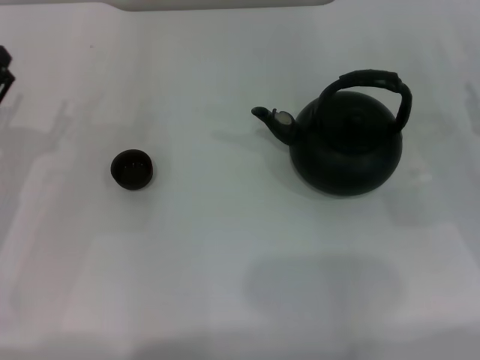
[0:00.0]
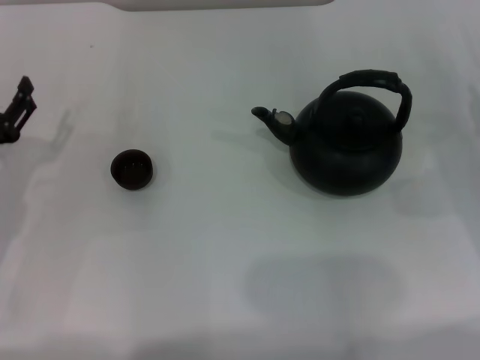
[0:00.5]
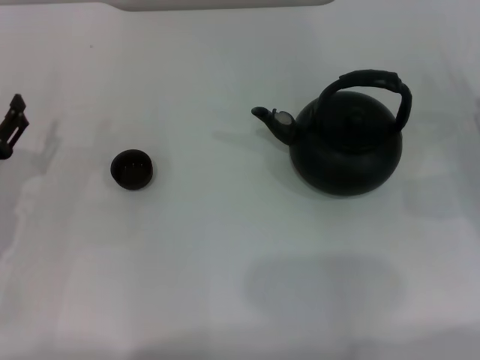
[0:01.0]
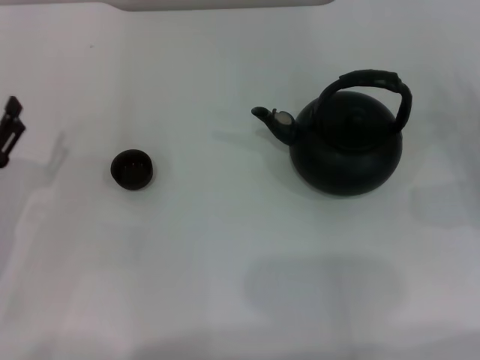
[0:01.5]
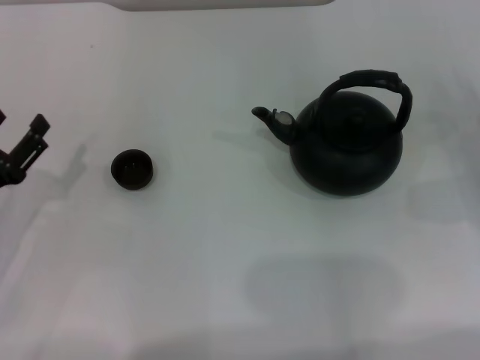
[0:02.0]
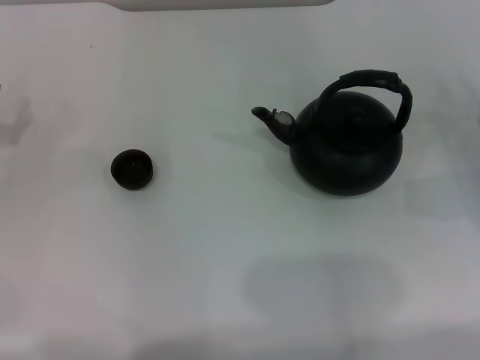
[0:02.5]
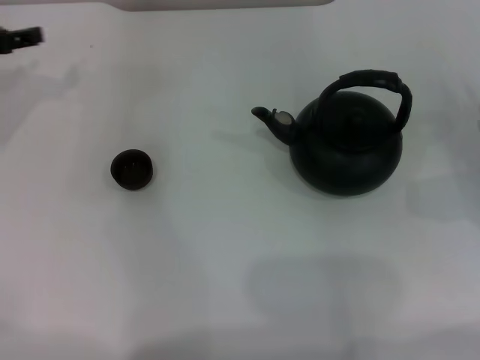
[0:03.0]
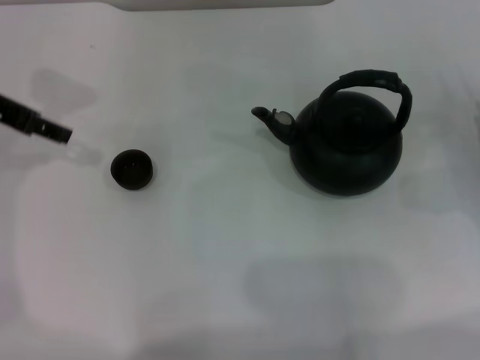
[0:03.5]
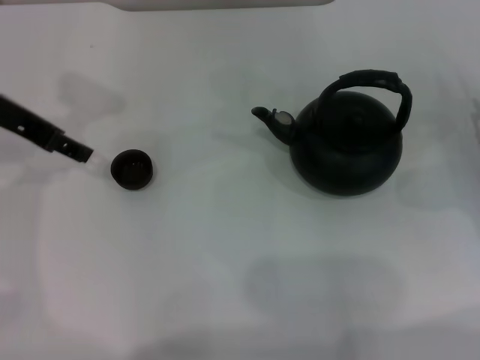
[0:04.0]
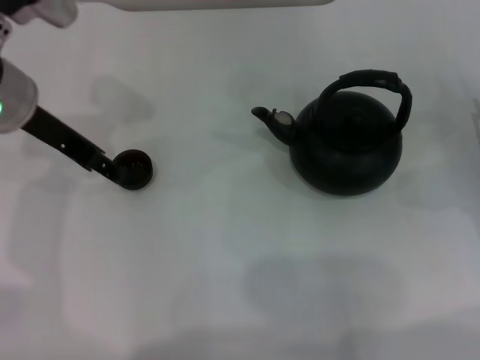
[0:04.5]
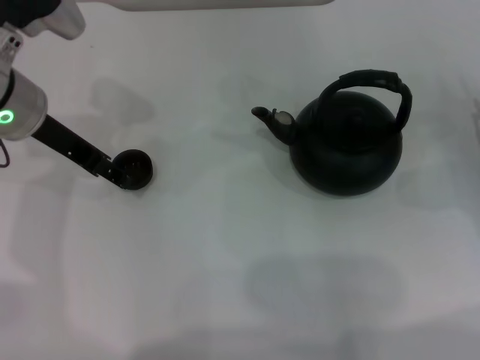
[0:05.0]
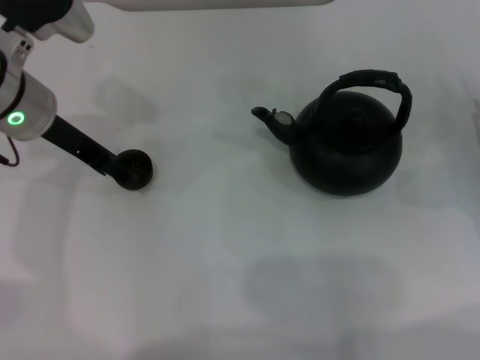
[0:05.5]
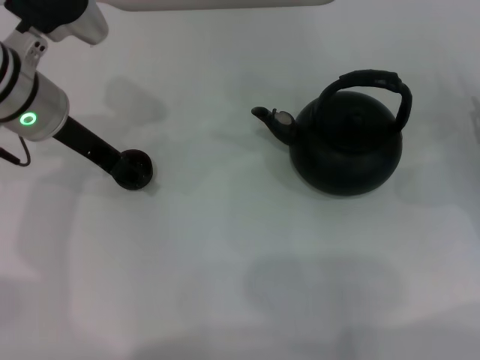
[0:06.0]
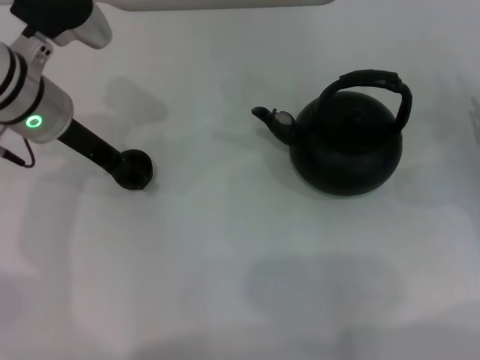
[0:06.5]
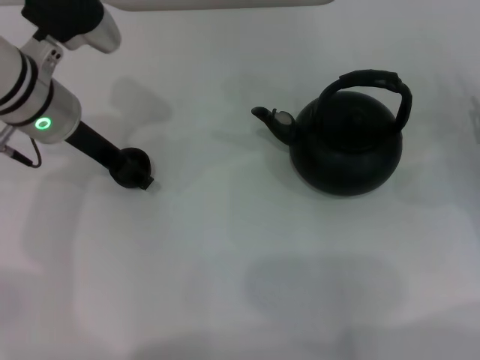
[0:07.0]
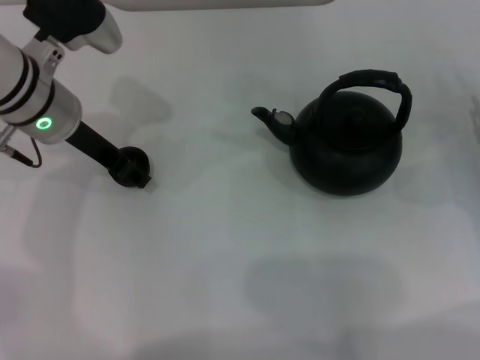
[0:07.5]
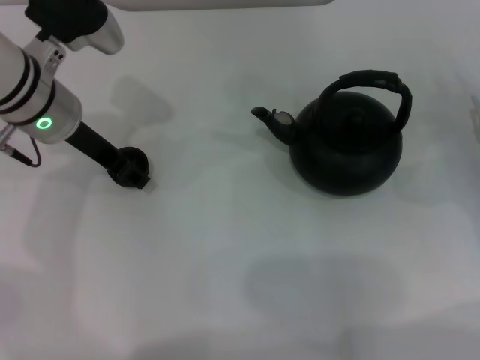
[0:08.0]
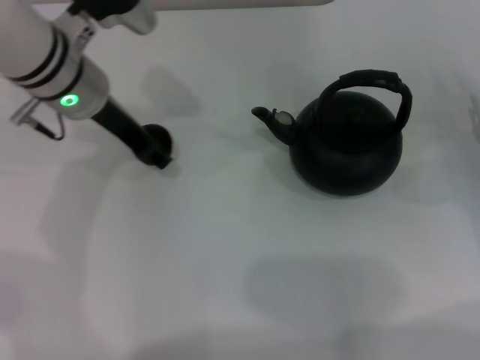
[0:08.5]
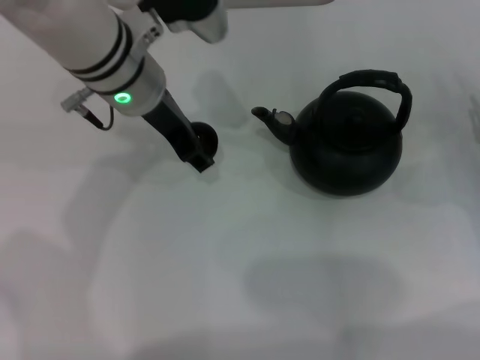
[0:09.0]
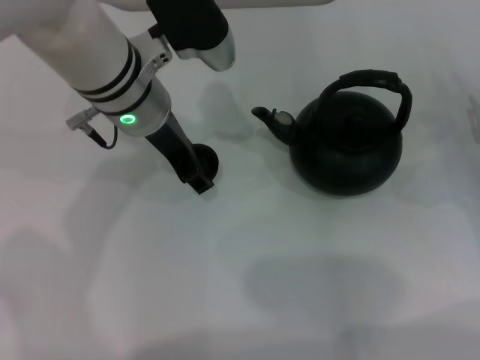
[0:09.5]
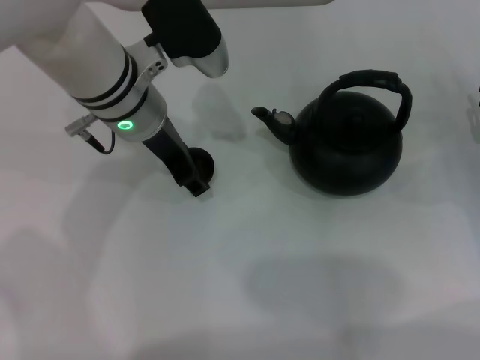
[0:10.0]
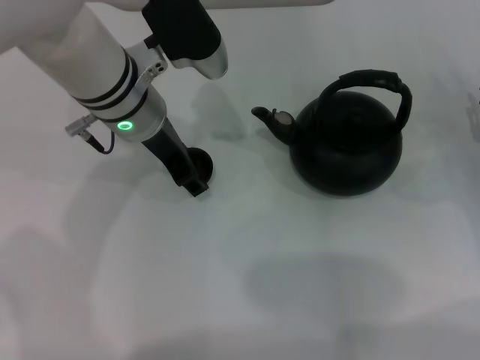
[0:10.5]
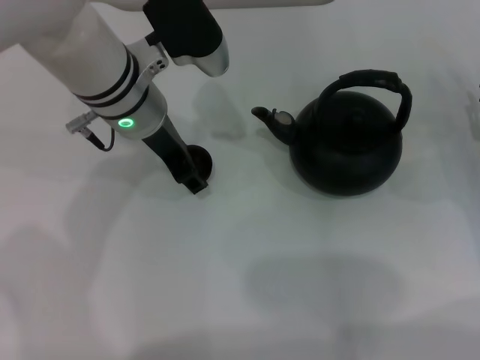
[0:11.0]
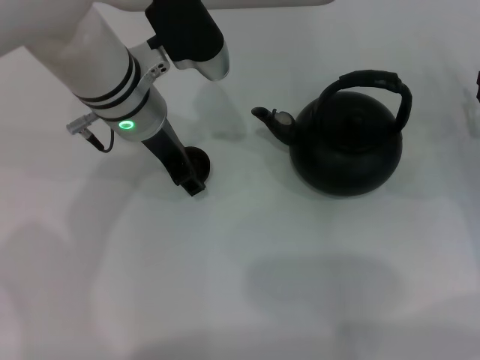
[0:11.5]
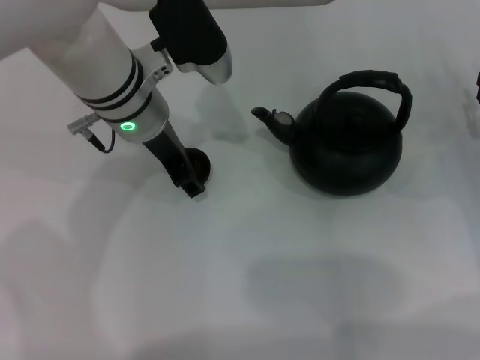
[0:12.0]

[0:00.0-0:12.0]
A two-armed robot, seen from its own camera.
Task of the whole recording: Grasp the handle of the teapot with one hand and pour tea into the teacup.
Step, 0:00.0 to 0:08.5: Pick up the teacup with the left gripper.
0:00.0 to 0:02.0: The grippers stay close to where they were, moving slightly.
0:02.0 to 0:04.0: The left gripper goes approximately 20 cm upward and forward.
0:04.0 to 0:06.0: The left gripper is displaced to the right by roughly 5 cm.
0:06.0 to 0:08.0: The left gripper closes its fingers.
0:08.0 to 0:10.0: The left gripper heads to the right, covering approximately 10 cm.
0:10.0 to 0:12.0: The two grippers keep their place.

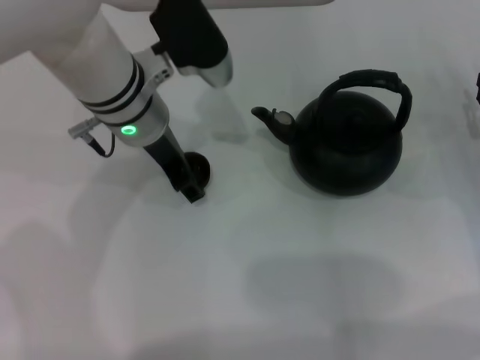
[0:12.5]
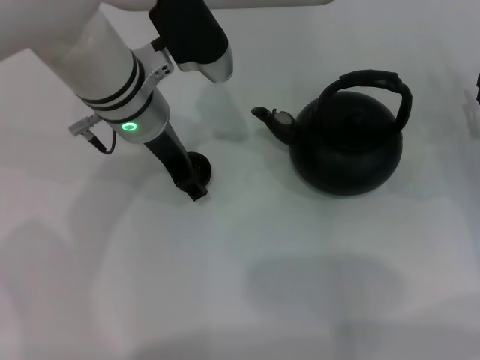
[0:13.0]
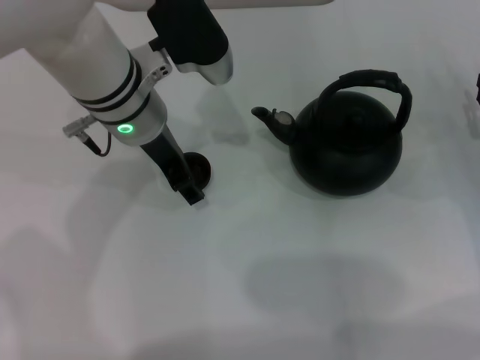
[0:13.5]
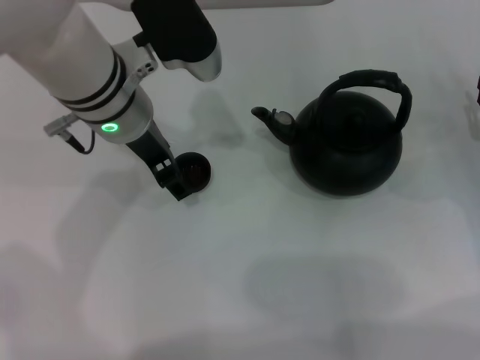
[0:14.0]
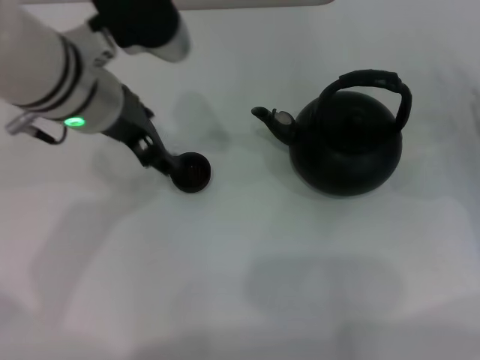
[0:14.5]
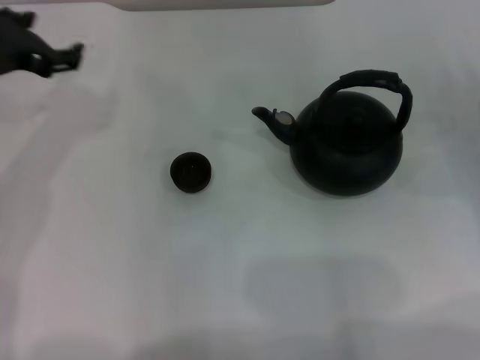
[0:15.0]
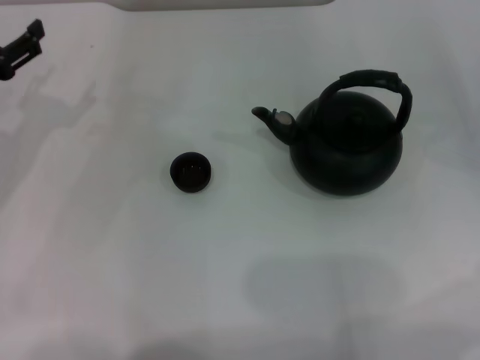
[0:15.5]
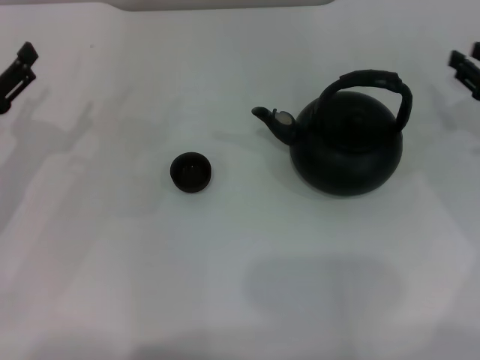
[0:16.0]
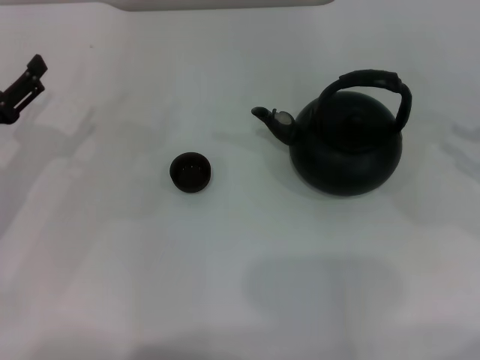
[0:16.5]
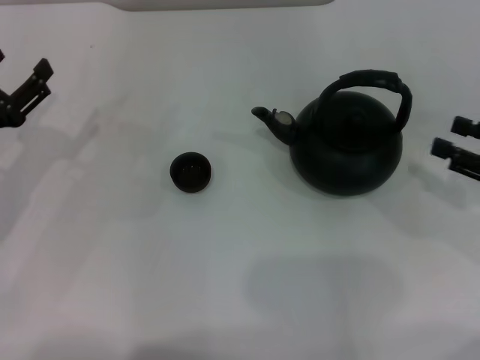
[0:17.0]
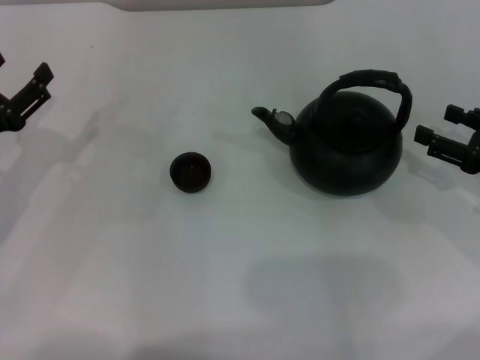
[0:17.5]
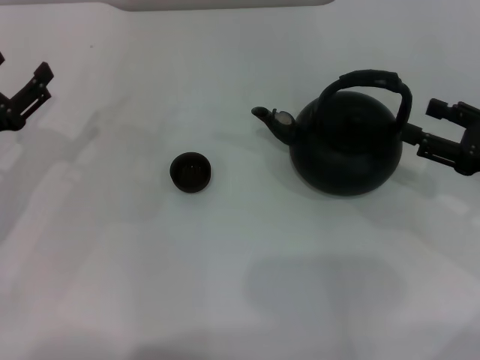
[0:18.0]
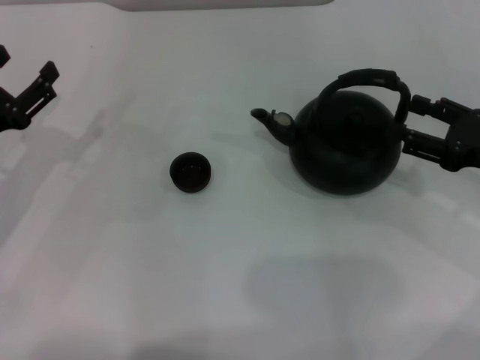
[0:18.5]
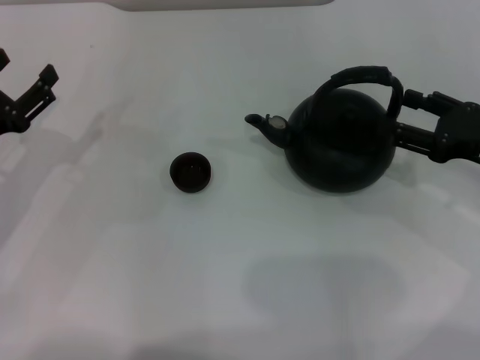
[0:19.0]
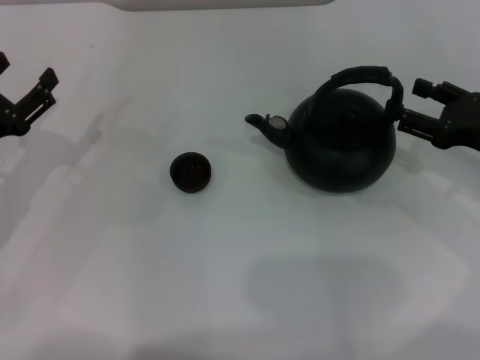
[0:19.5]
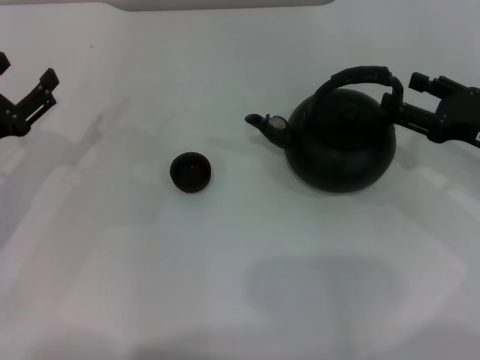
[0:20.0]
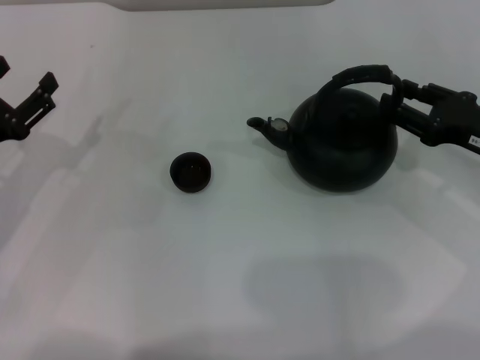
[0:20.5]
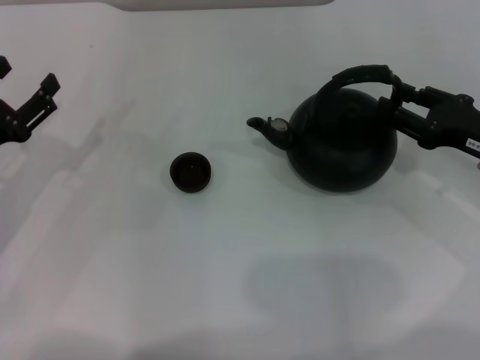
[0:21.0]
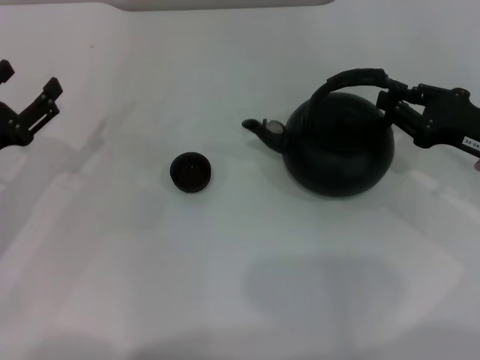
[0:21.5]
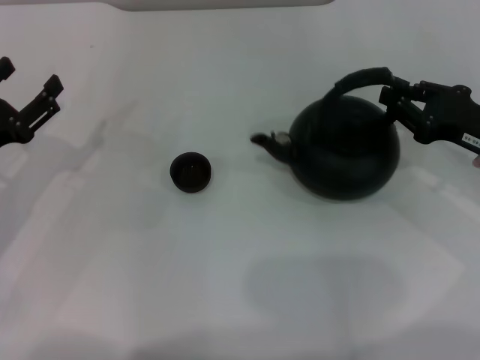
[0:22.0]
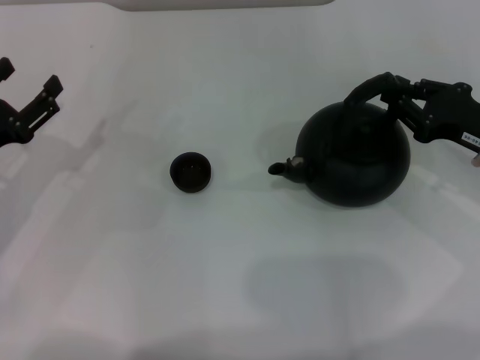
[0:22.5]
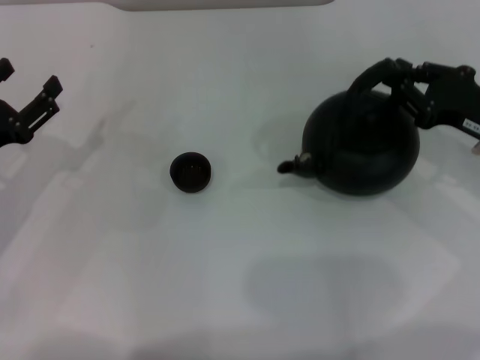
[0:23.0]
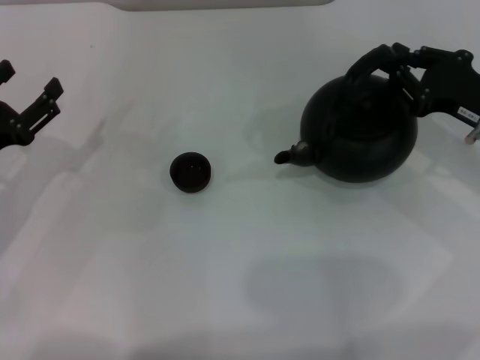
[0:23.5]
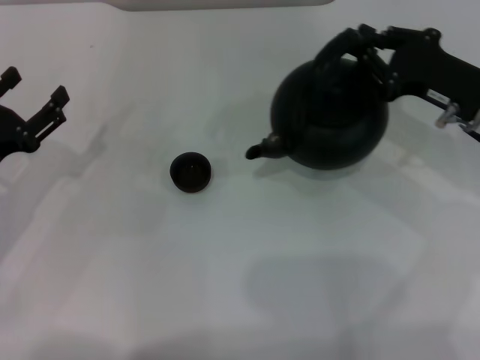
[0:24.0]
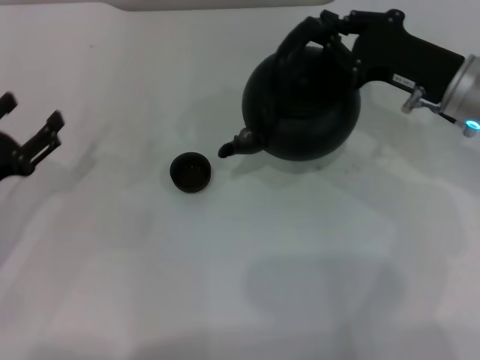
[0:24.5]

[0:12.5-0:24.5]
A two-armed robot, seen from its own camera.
Task of the whole recording: Grasp the handle of the teapot with one hand and pour tea into the teacup.
Step, 0:14.5 to 0:23.5: Pick up the teapot with the right gripper.
0:12.5 to 0:14.5: The left gripper moves upward, some 5 cm, and opens its fingers.
0:14.5 to 0:16.5: The left gripper is displaced to the left and downward by approximately 20 cm; the right gripper heads upward, covering approximately 10 cm.
0:16.5 to 0:18.5: The right gripper heads to the left, covering roughly 10 cm, and opens its fingers.
0:18.5 to 0:20.5: The right gripper closes.
0:20.5 to 0:22.5: The right gripper closes its fingers.
0:22.5 to 0:24.5: The right gripper heads to the left, covering about 5 cm.

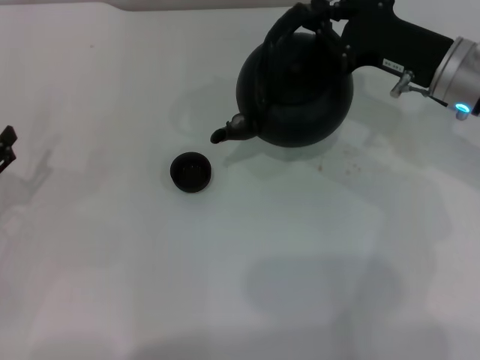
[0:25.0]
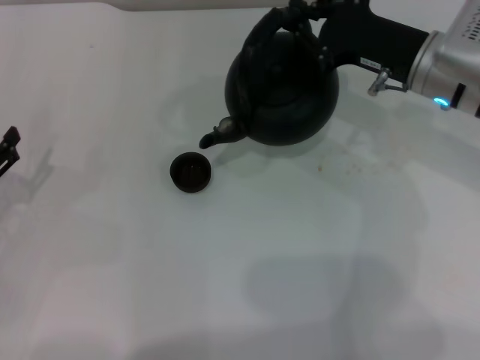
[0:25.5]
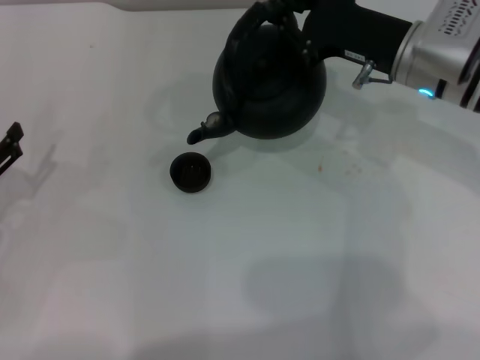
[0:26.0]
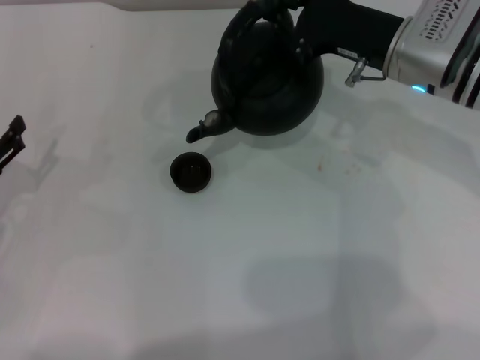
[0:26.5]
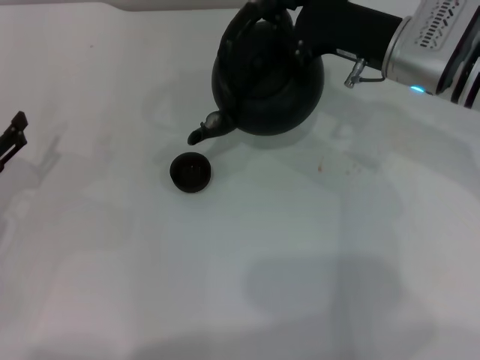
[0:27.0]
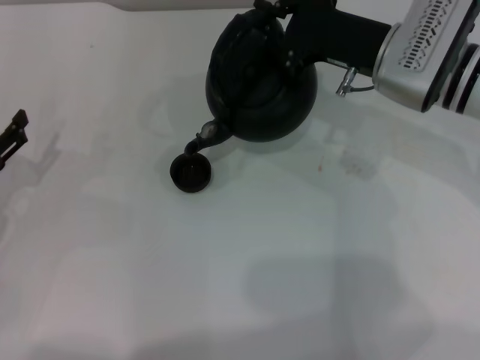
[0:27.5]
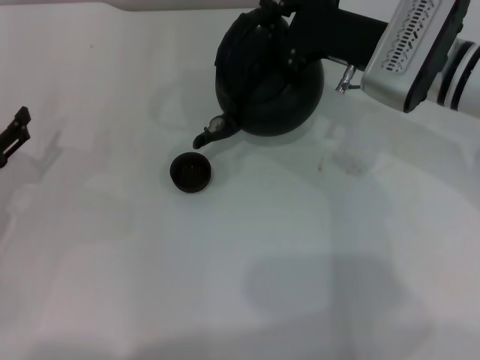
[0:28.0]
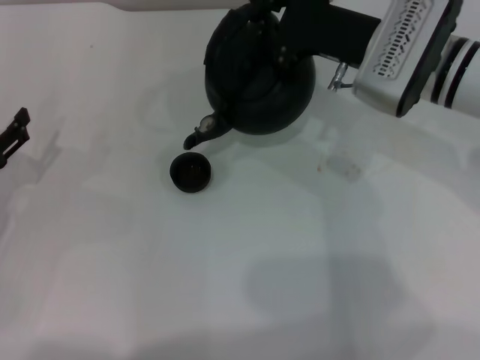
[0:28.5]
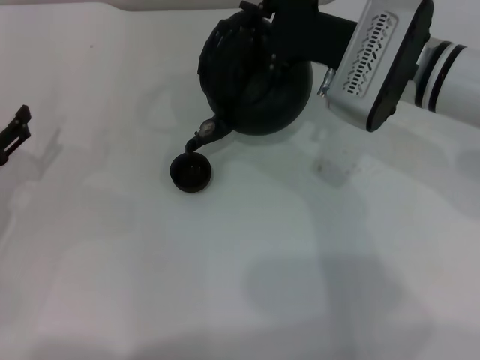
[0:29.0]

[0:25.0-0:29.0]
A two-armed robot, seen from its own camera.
Task of the whole recording: Grasp the handle of the teapot with one hand and pour tea into the teacup.
0:25.0 to 0:27.0: The grippers move only a little.
0:27.0 to 0:29.0: The grippers move only a little.
